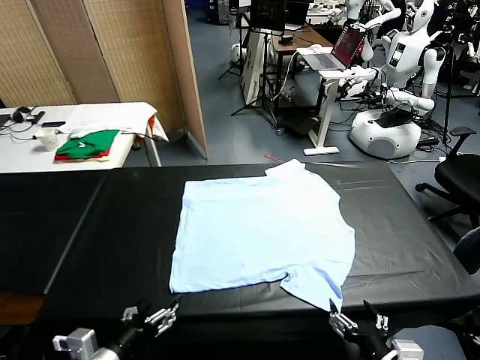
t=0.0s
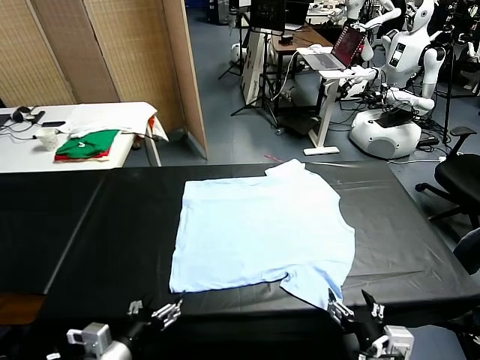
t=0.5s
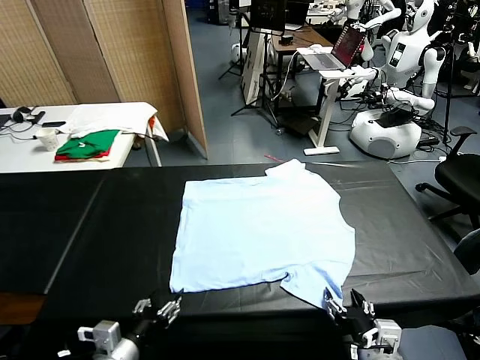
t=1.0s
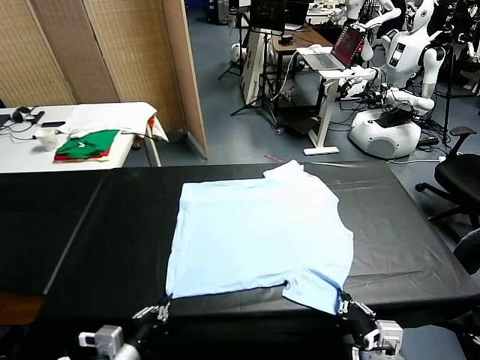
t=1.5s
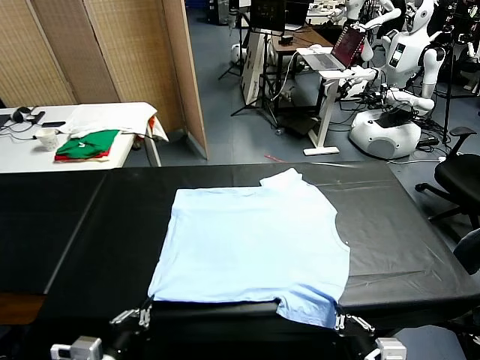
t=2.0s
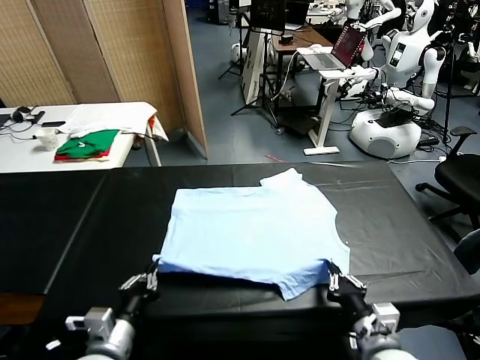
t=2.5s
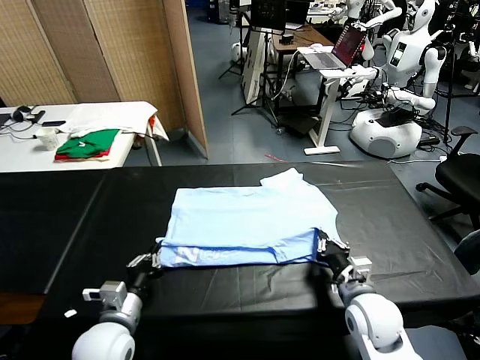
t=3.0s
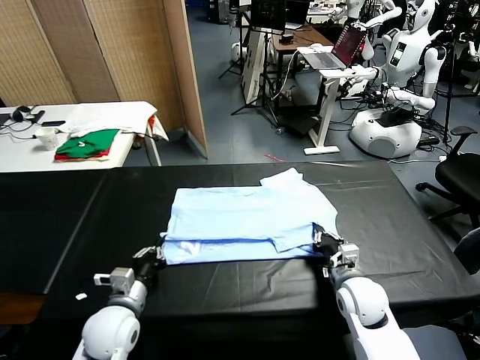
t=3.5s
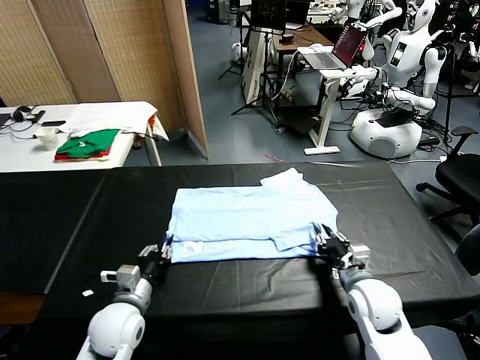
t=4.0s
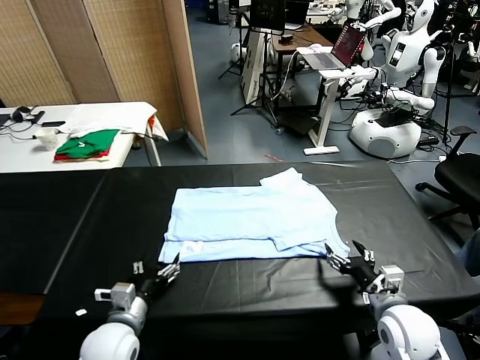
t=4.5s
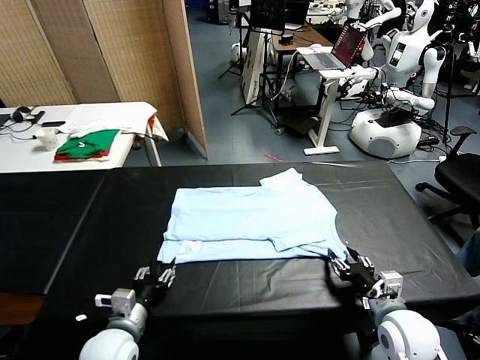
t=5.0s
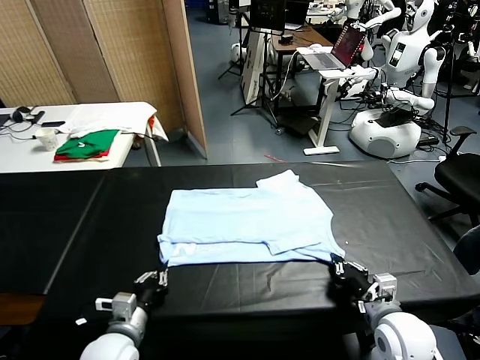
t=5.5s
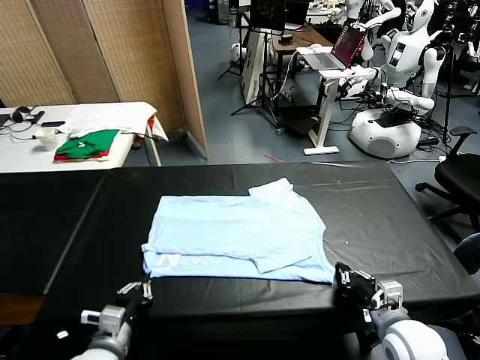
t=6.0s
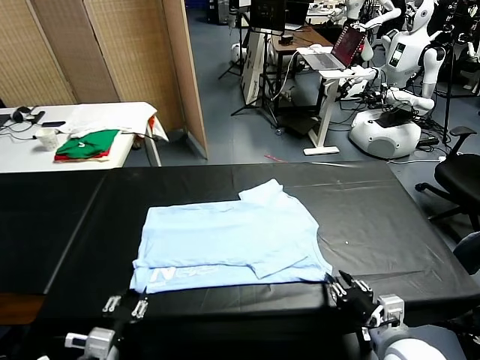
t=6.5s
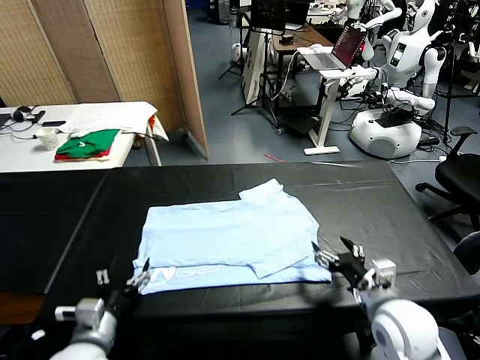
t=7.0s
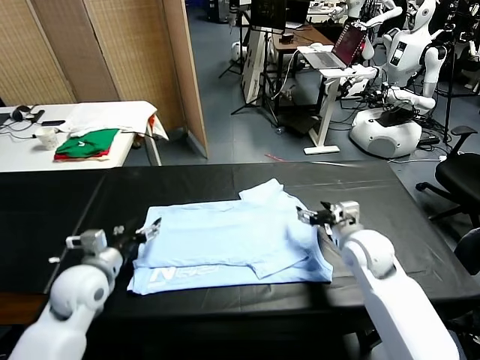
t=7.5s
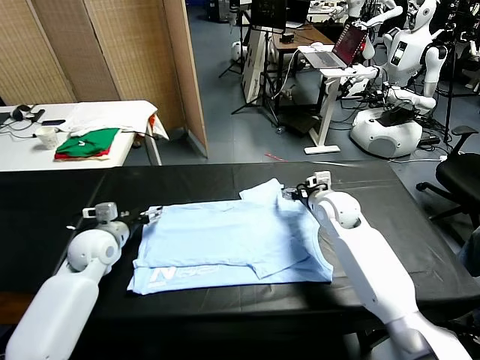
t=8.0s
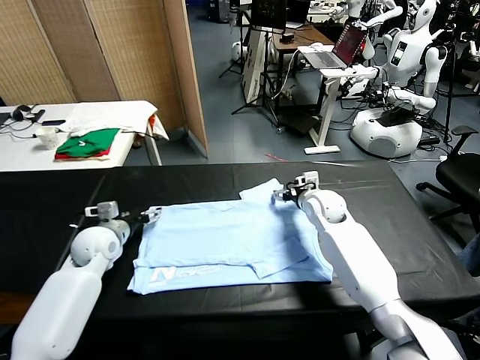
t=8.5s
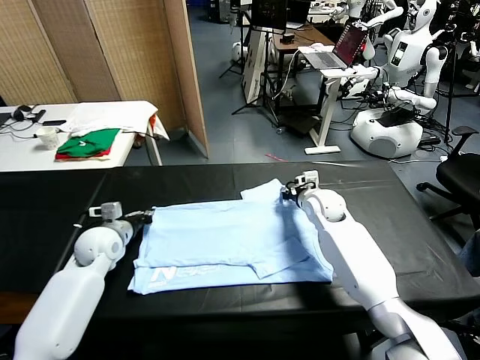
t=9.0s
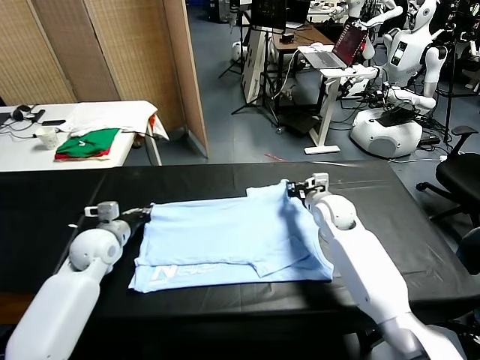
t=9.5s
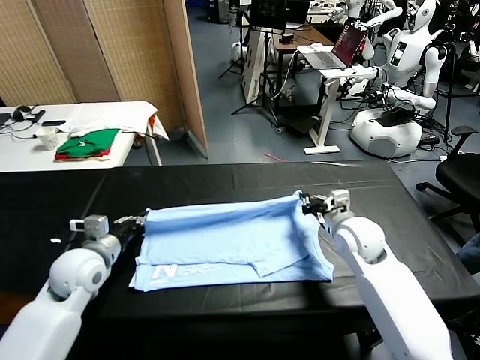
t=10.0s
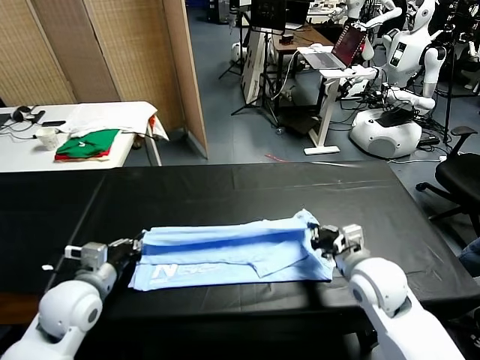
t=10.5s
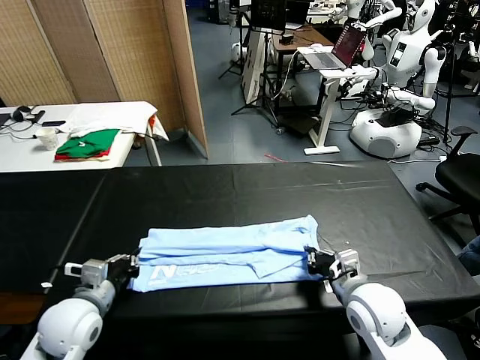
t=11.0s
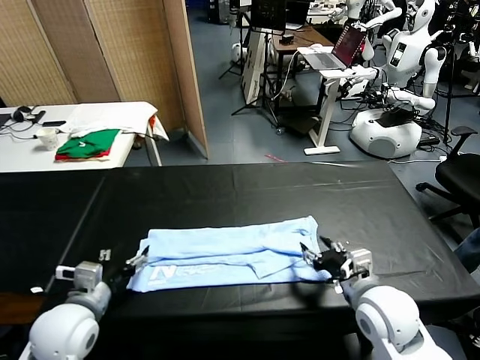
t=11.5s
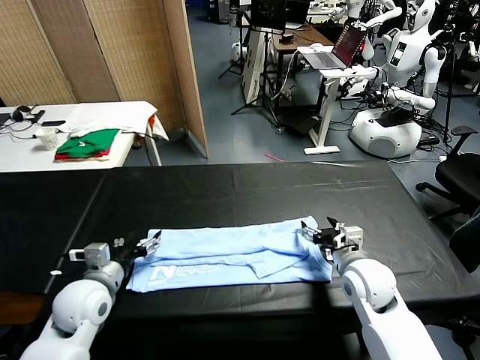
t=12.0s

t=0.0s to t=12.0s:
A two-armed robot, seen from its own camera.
Task of the whole recording: fold and organize the clothes.
Step, t=0.0s to t=1.0s: use both grippers simultaneously to clamp the lower edge of the clothing fabric.
Step, t=2.0s to t=4.0s: use both grippers to drag the lower edge of the fabric forward and fold it over the upper edge.
Step, t=4.5s to t=6.5s: Drag the clothes downward with both gripper.
Step, t=7.0s to t=9.0s: use both grippers simultaneously to clamp the upper edge of the clothing fabric.
Step, t=9.5s to t=11.0s: use both grippers to drag the upper edge of the fabric backward and fold it over the lower edge.
t=2.0s to t=4.0s: The right gripper is displaced forward by some 15 cm, and opens, while the left gripper travels forward and downward by approximately 15 cm, and opens its fingers.
t=4.0s to t=6.0s: The two grippers go some 10 cm backward. The right gripper closes up; the left gripper closes its fingers.
t=6.0s to t=8.0s: The two grippers go some 25 cm forward. The right gripper opens its fingers. Meanwhile the left gripper opens up.
t=8.0s to t=10.0s: The right gripper shifts some 15 cm backward, and closes up. The left gripper goes approximately 5 cm backward, and closes its fingers.
t=10.0s to t=12.0s: The right gripper is displaced downward by roughly 5 cm, travels backward and back again, approximately 10 cm each way, and opens up. The left gripper is displaced backward by about 5 cm, and opens.

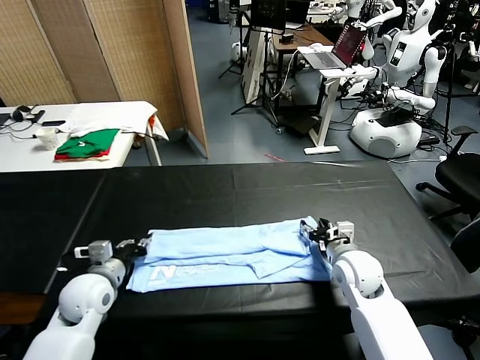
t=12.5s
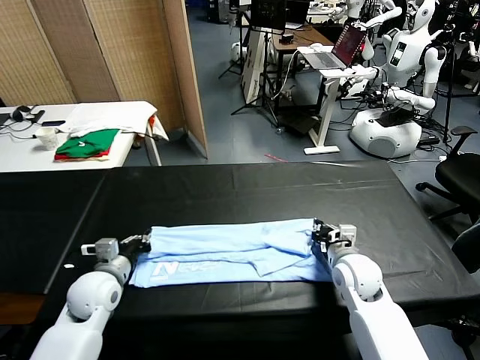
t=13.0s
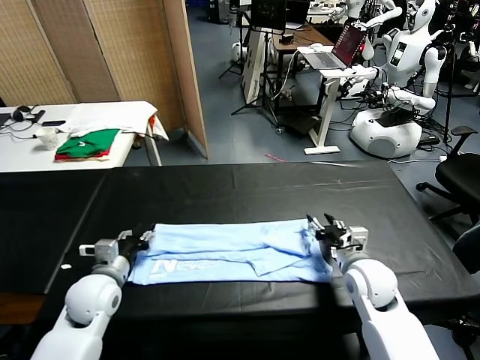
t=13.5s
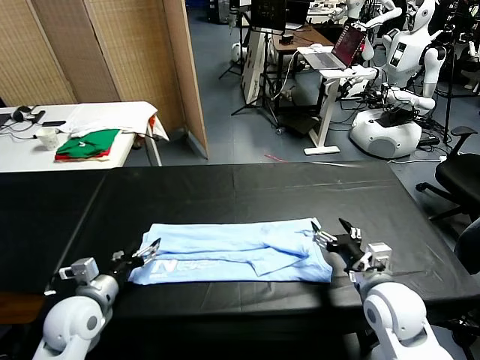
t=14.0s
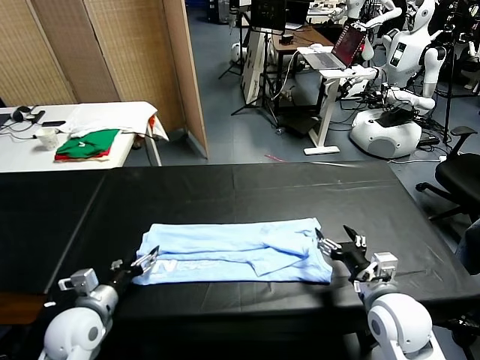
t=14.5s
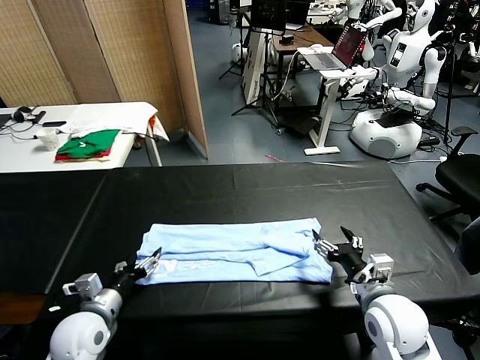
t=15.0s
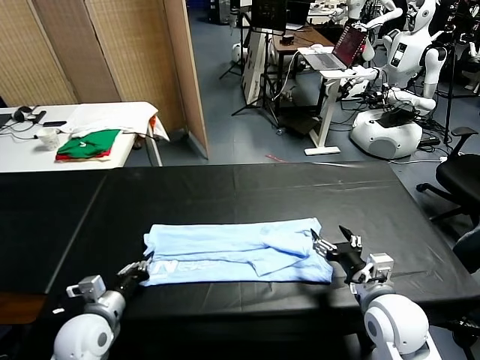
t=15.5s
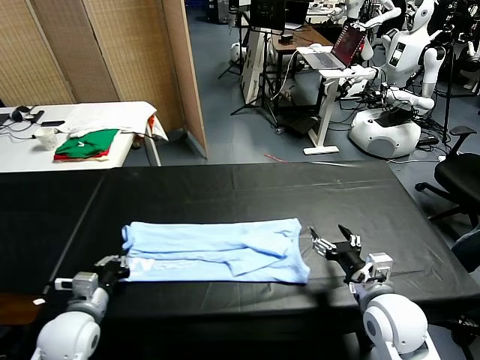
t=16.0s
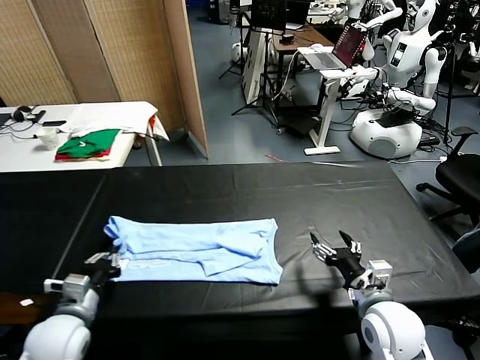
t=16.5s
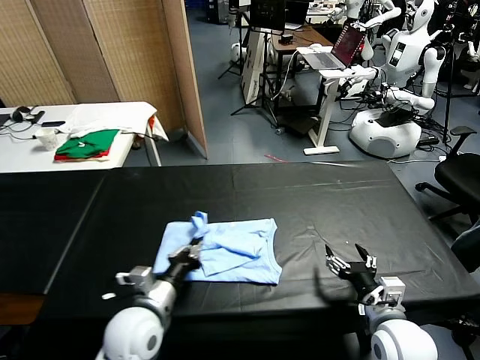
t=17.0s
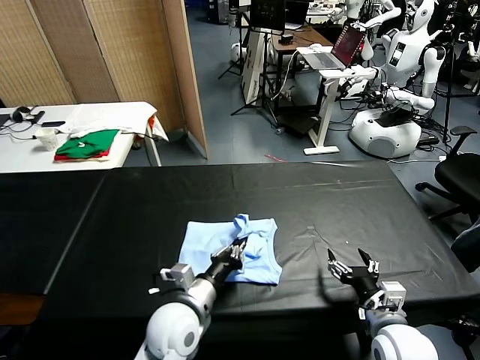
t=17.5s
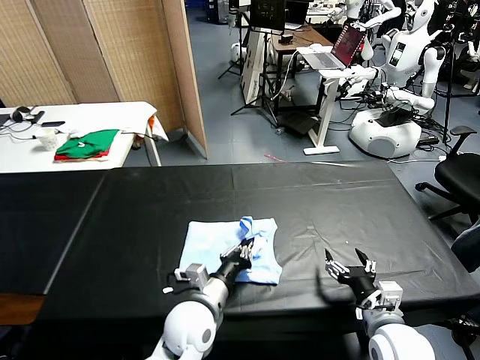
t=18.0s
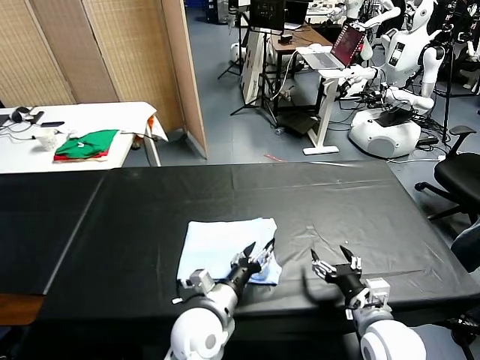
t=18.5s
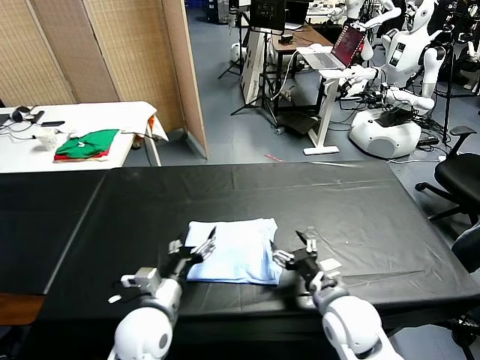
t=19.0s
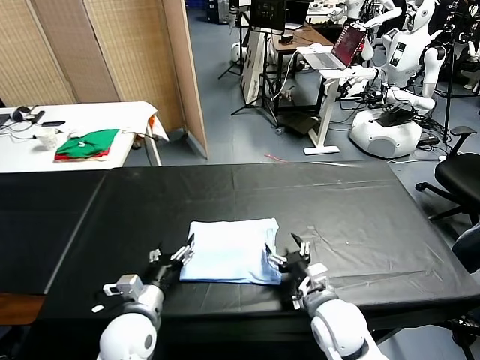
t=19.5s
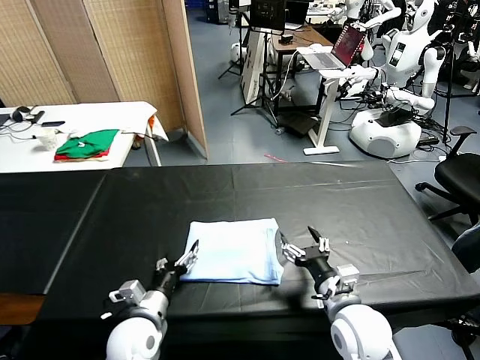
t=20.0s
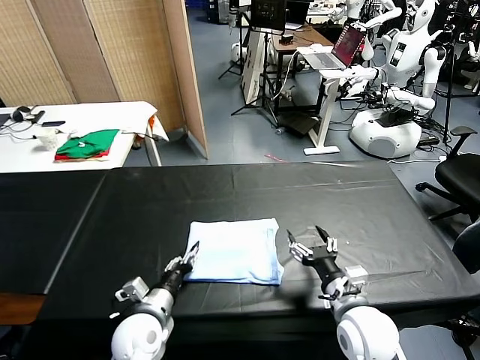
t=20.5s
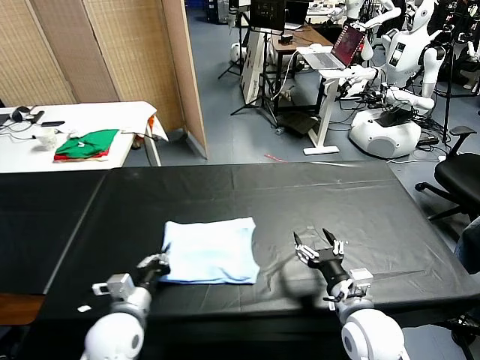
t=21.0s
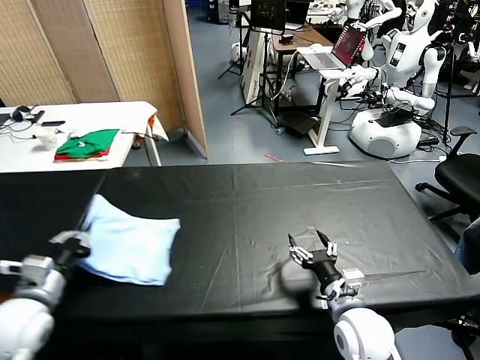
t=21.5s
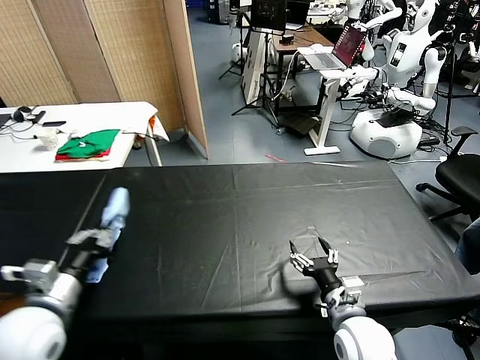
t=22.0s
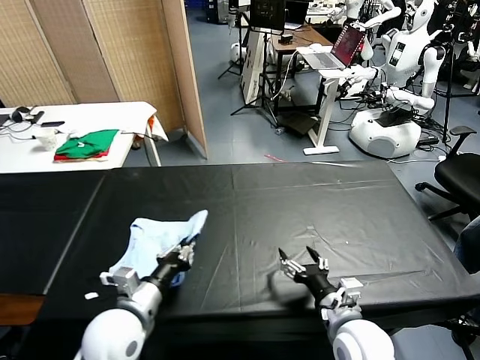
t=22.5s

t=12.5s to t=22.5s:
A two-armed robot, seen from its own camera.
Task of the whole recording: fold and organize the clothes.
Step, t=12.5s to t=15.5s: use the left gripper to clamp the left edge of the fabric.
Step, t=16.0s to t=18.5s: use the left gripper to drag the left edge of the fabric to the left and folds it over the right edge.
t=12.5s to t=14.5s: The right gripper shifts roughly 10 cm backward, and closes, then reopens; the left gripper moves backward, about 5 cm, and opens its fingers.
t=14.5s to t=16.5s: The left gripper closes.
t=16.5s to t=18.5s: The left gripper heads to the right, covering approximately 25 cm, and opens up.
t=18.5s to t=20.5s: The left gripper is displaced to the left by about 15 cm.
t=20.5s to t=22.5s: The left gripper travels upward by approximately 10 cm, and closes its fingers.

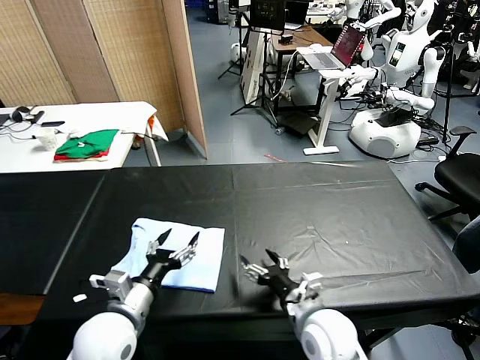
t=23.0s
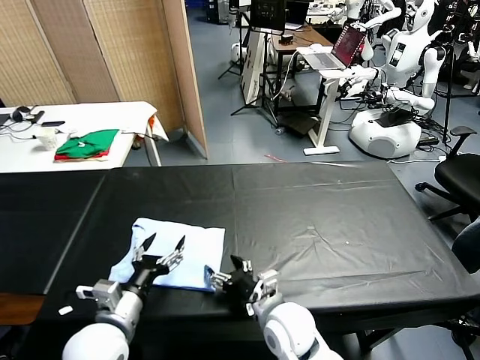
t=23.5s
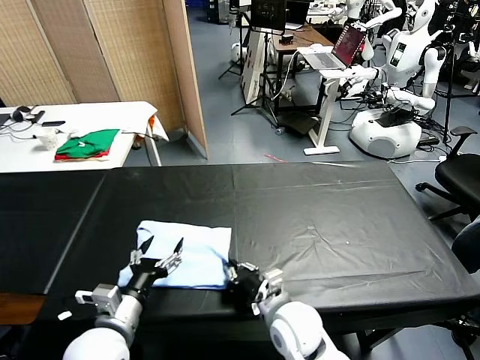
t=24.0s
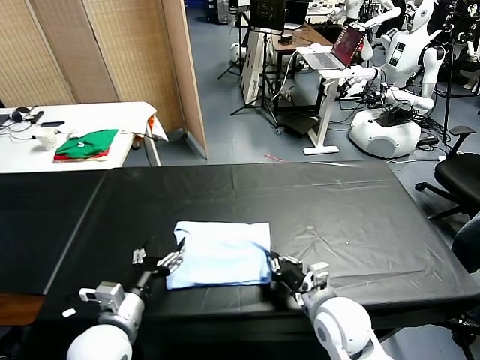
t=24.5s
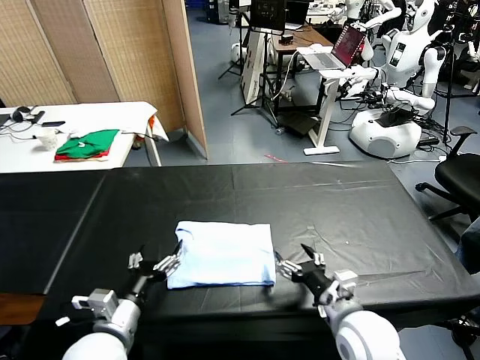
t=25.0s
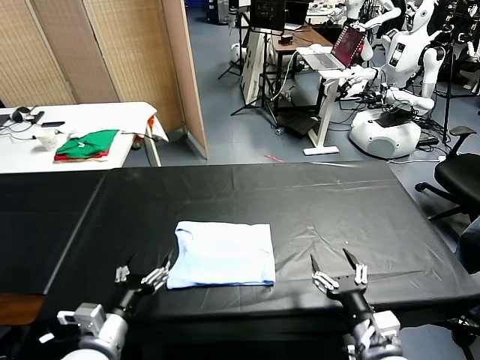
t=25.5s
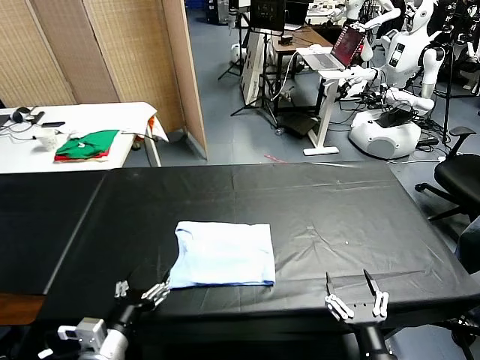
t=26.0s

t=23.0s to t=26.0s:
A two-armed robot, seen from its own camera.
Task of the whole recording: fold and organize the clothes.
Step, t=23.0s to t=24.5s: Drag the clothes to the center of the table.
t=23.0s to t=24.5s: The right gripper travels to the left and back again, roughly 5 cm each way, and closes.
t=24.5s to t=26.0s: The right gripper goes about 15 cm backward, and opens; the left gripper is displaced backward by about 5 cm.
